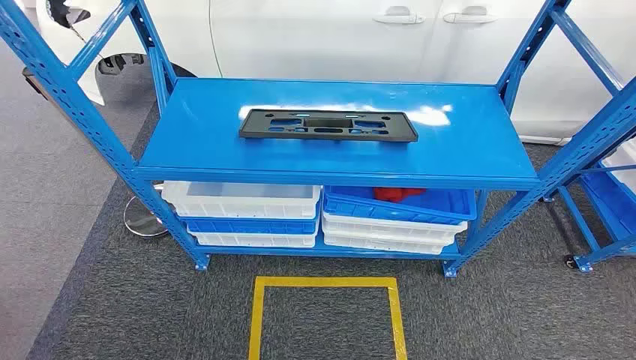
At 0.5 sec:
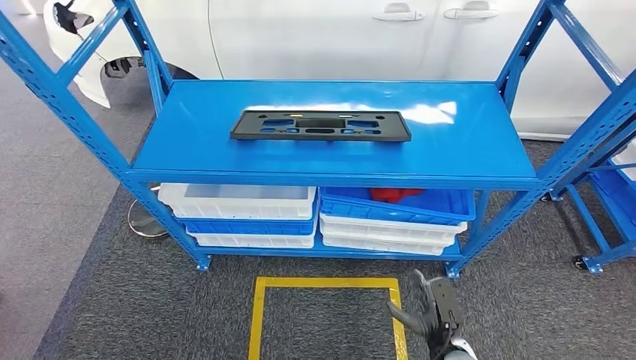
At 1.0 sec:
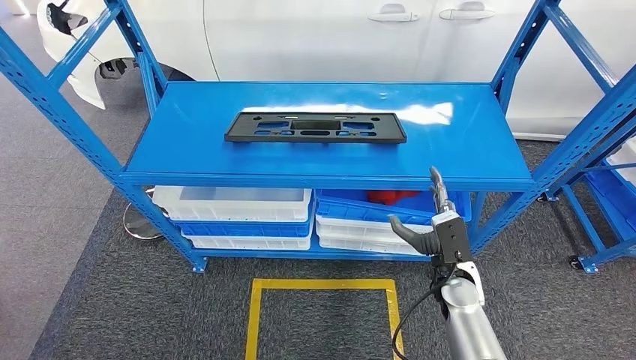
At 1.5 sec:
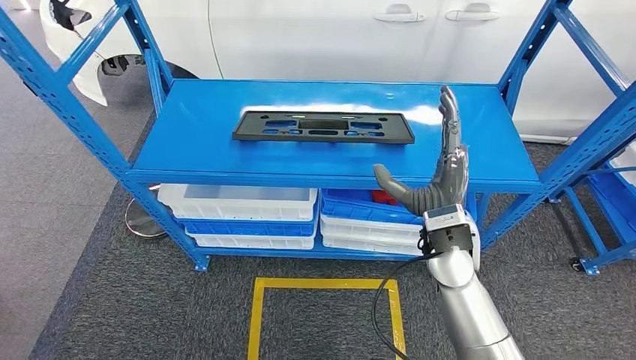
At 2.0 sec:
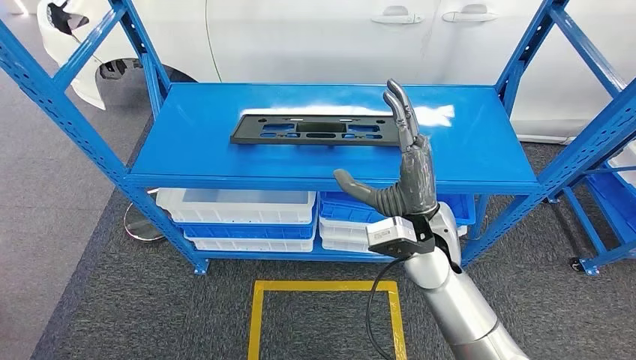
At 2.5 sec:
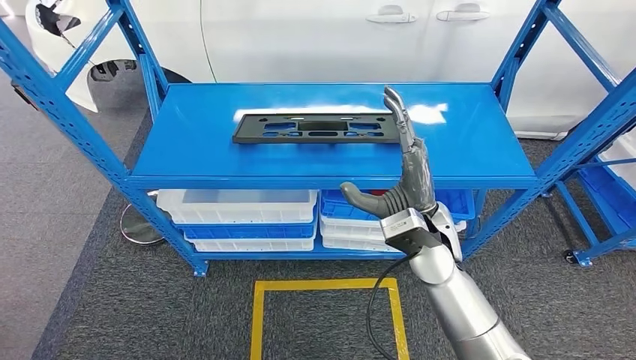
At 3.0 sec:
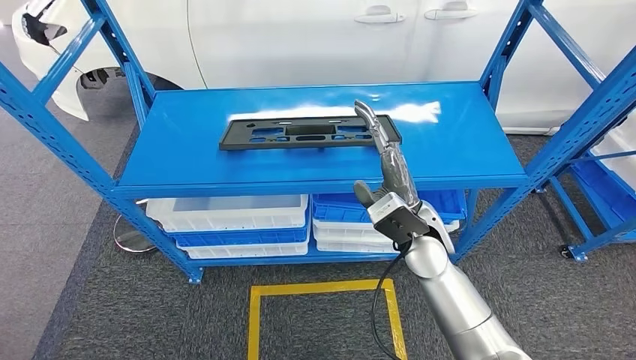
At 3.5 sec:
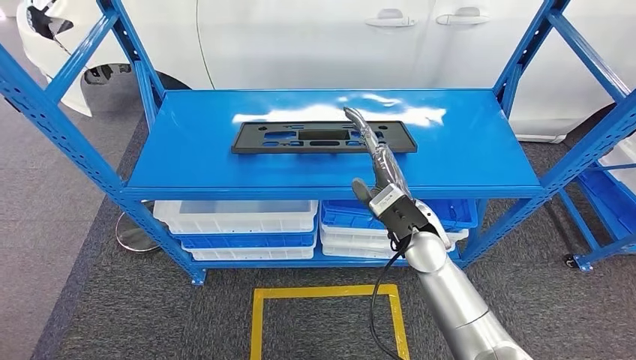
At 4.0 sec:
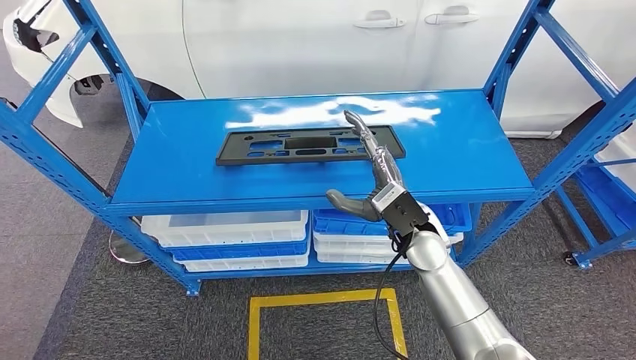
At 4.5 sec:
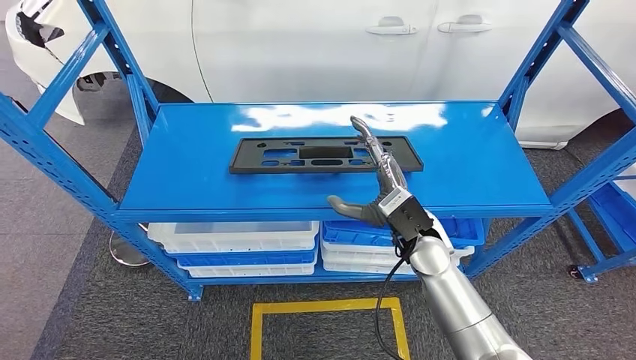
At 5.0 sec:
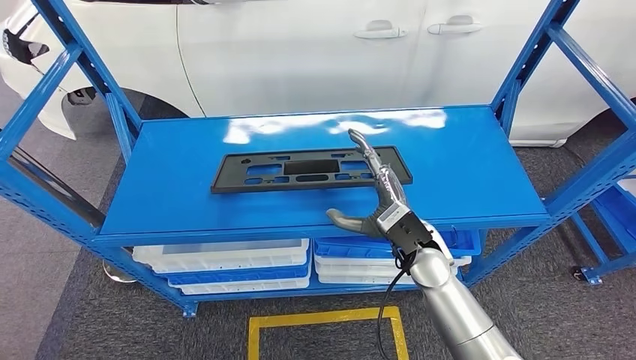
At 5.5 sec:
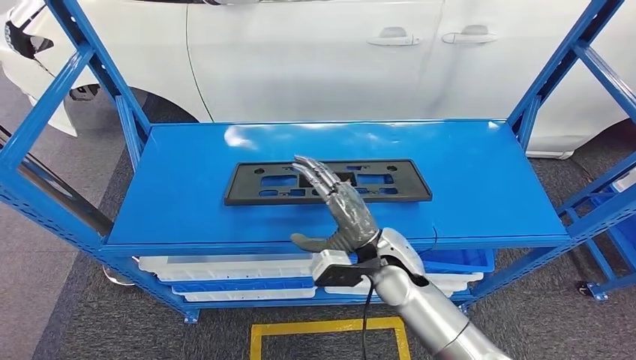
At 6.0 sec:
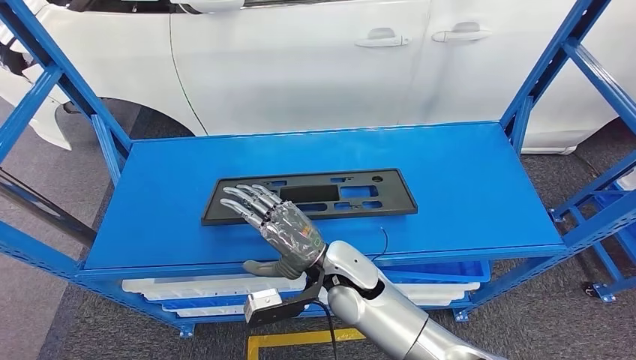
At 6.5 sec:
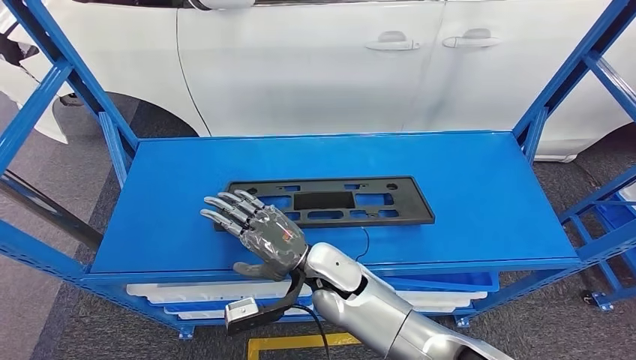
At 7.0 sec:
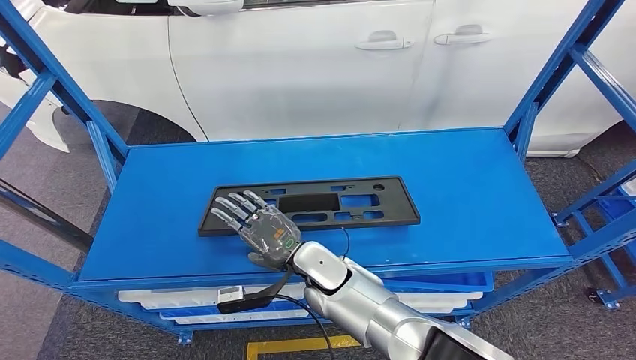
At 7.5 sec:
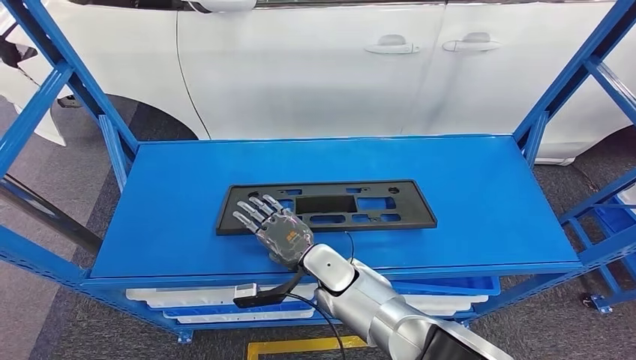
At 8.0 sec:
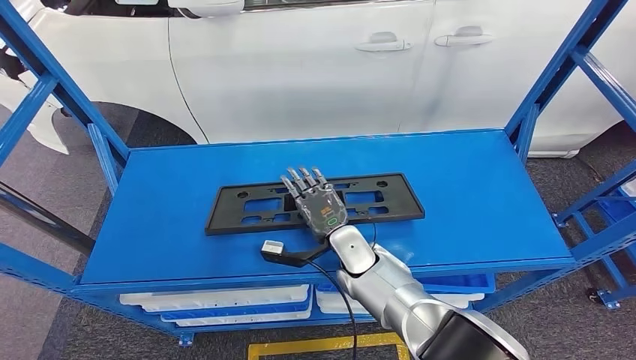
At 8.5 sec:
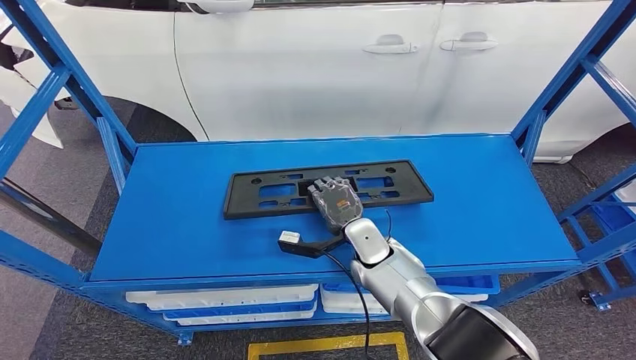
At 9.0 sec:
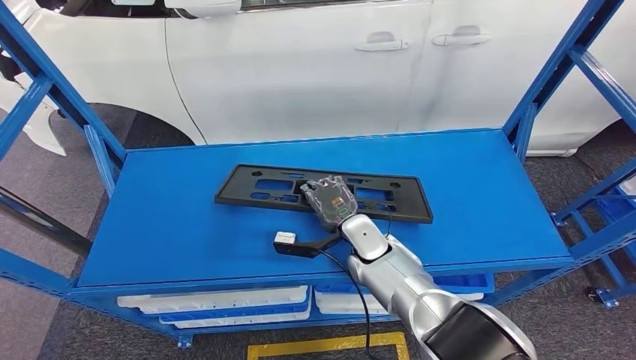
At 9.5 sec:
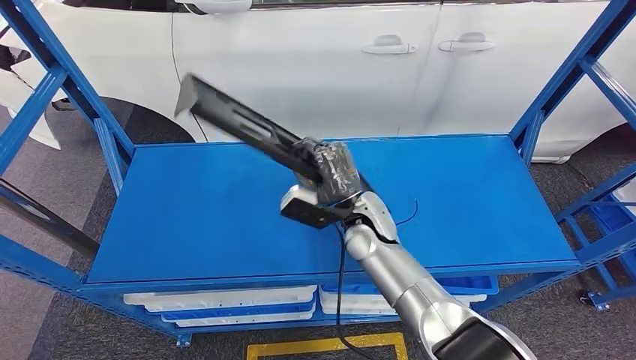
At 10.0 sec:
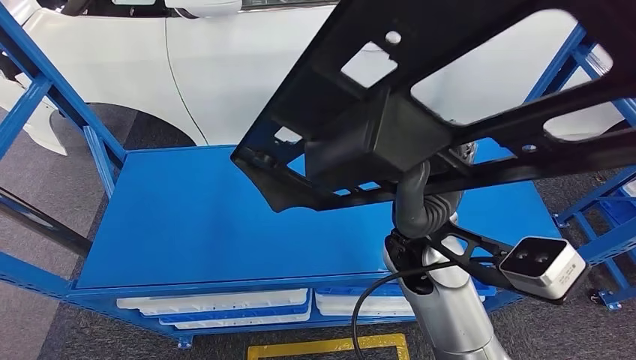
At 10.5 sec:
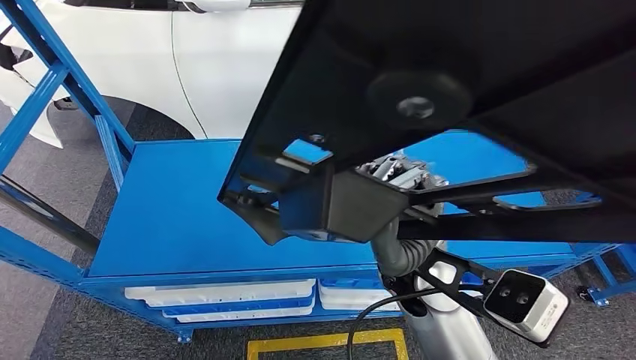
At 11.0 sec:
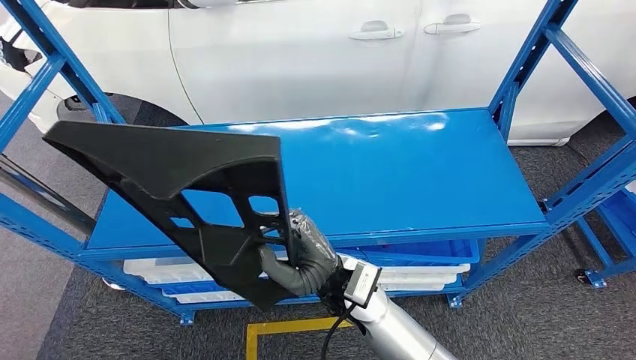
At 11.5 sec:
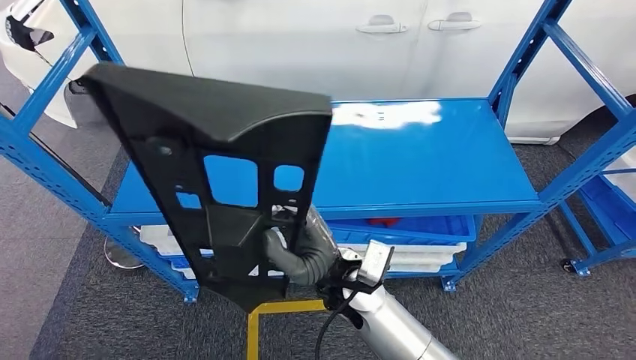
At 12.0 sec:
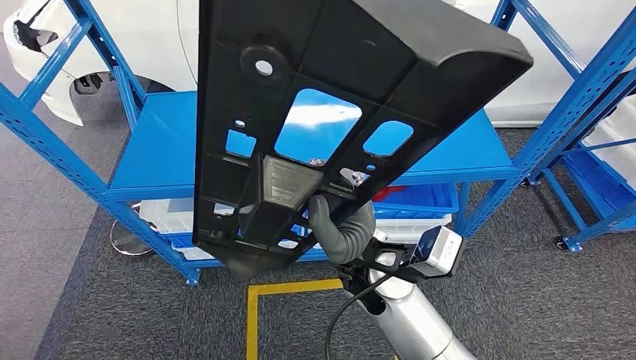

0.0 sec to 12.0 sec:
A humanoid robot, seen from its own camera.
Step, 0.0 sec to 11.5 sec: Pick up the small component from the shelf.

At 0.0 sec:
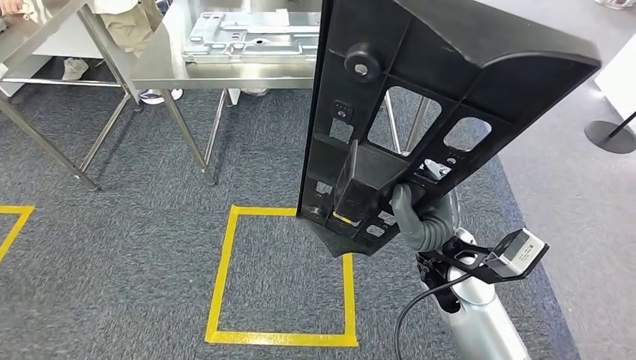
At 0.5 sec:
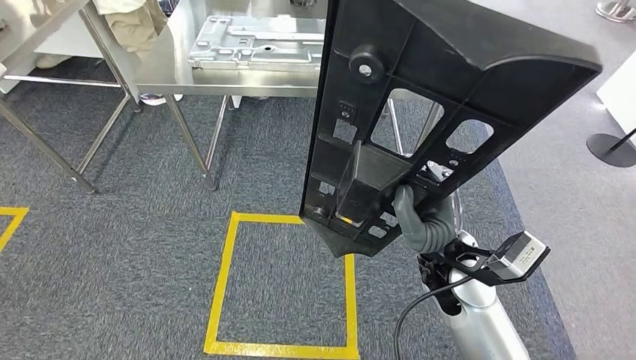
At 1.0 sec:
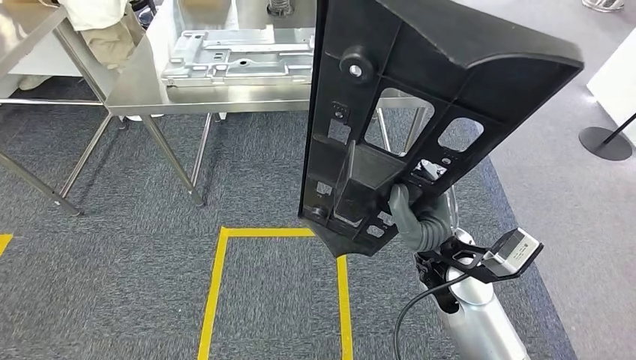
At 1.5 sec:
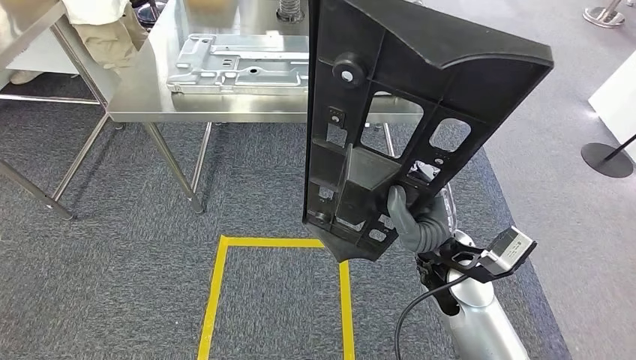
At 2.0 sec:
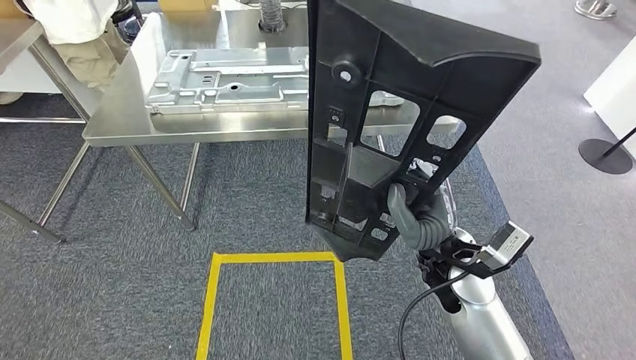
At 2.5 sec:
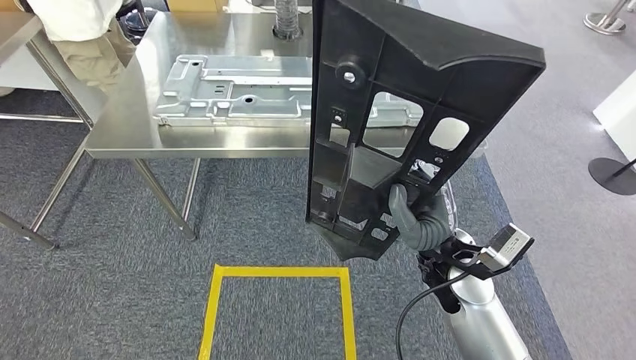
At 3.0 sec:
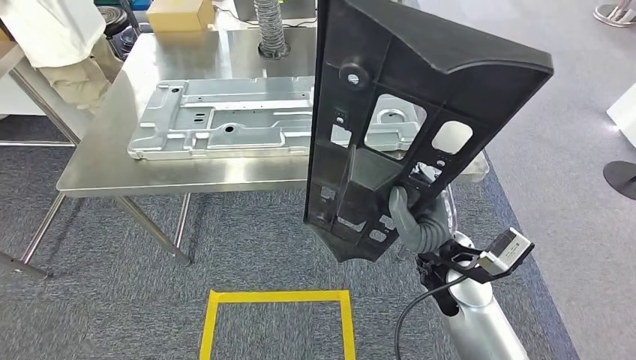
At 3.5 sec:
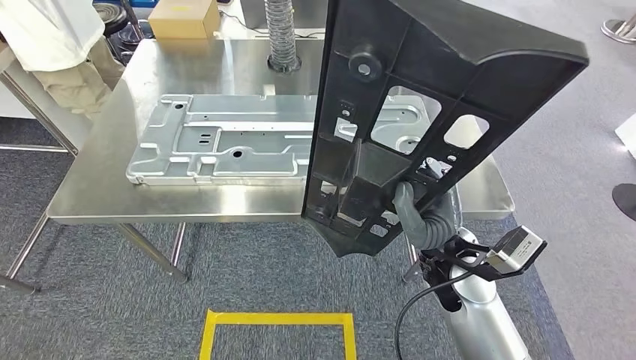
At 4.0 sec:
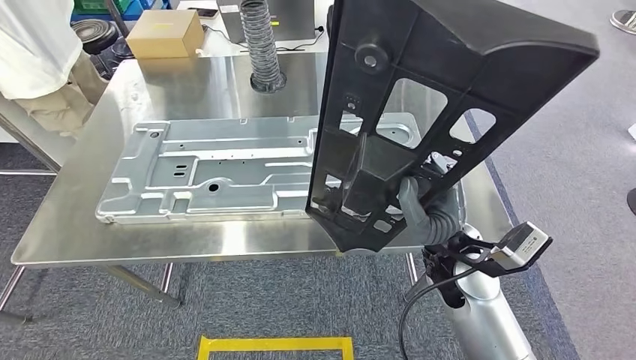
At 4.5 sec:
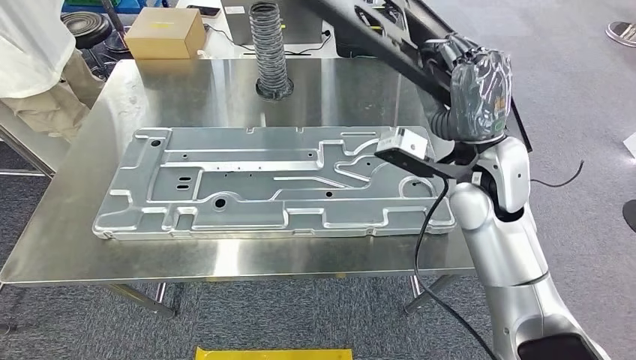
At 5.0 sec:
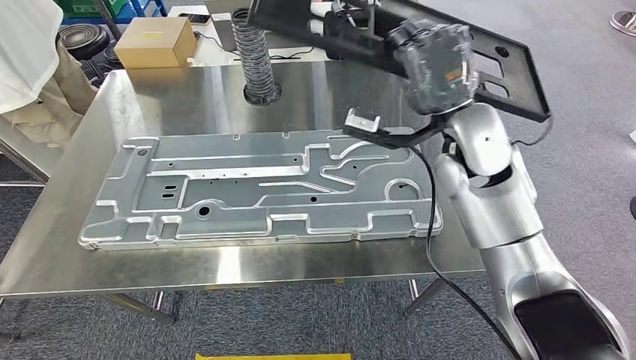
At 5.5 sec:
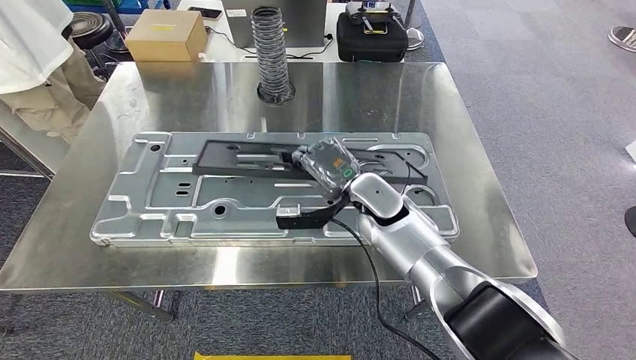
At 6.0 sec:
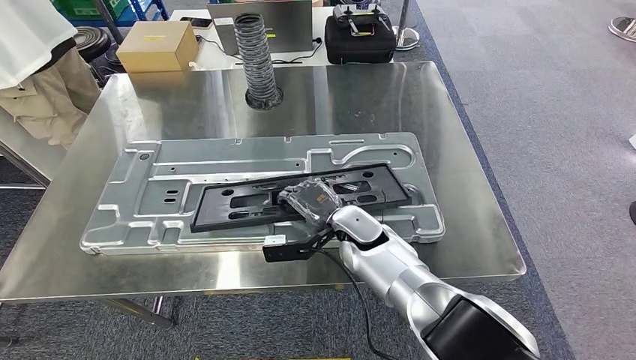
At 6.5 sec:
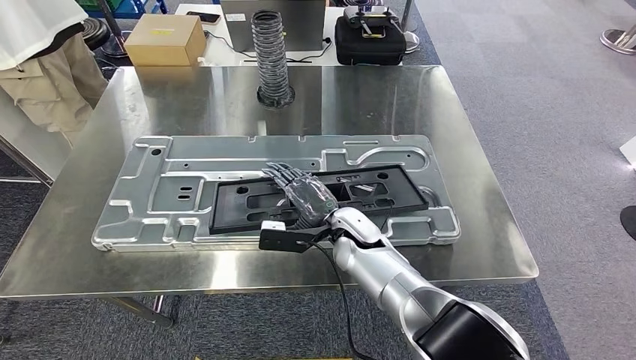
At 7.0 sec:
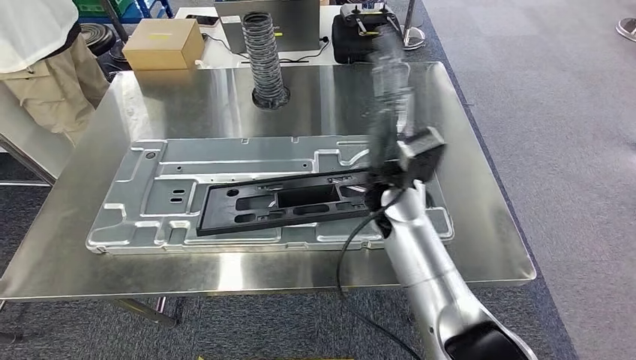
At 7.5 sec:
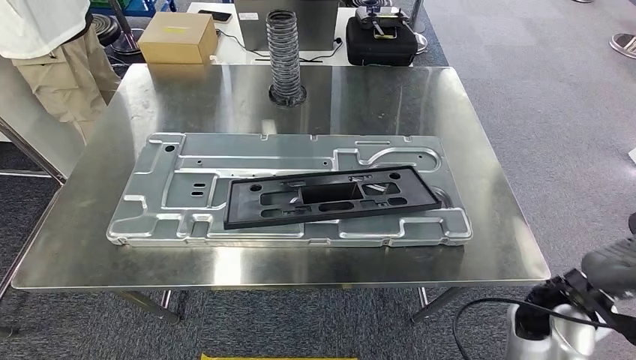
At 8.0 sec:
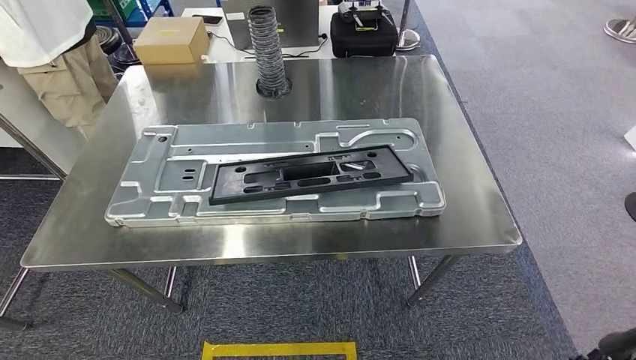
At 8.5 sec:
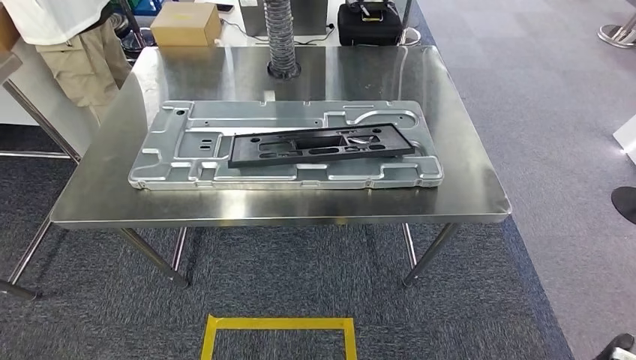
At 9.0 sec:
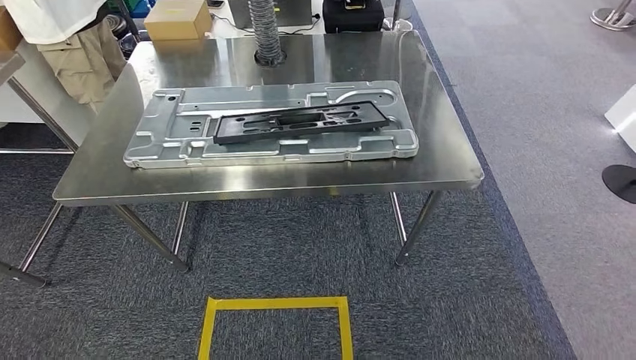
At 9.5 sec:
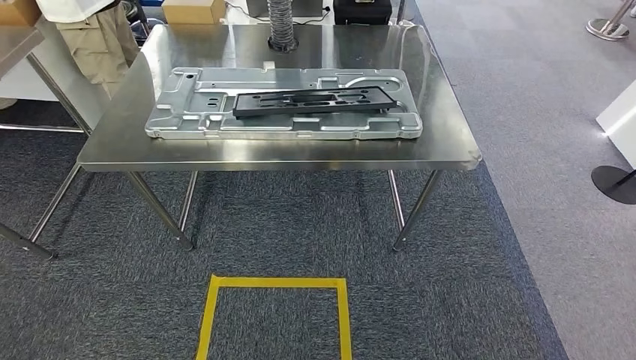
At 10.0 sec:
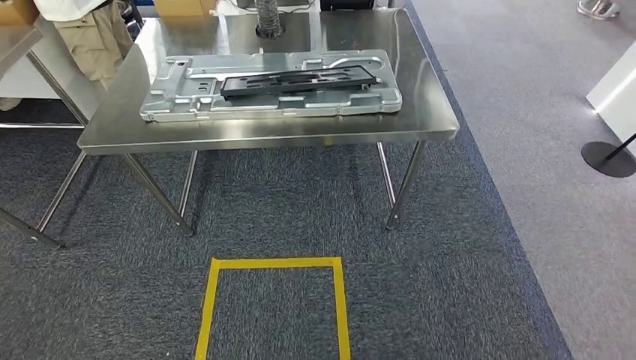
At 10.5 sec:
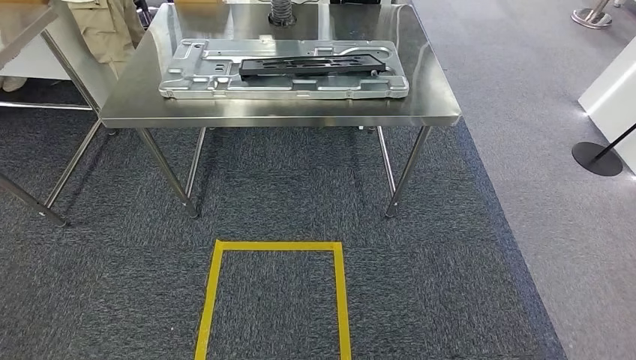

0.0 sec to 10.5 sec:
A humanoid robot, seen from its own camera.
Step, 0.5 sec to 7.5 sec: Insert the small component into the corresponding slot on the workbench.
Step, 8.0 sec to 10.5 sec: Move to the initial position at the workbench.
